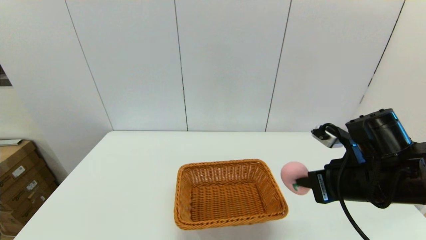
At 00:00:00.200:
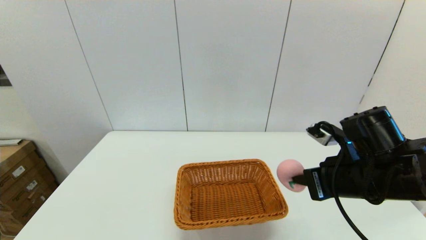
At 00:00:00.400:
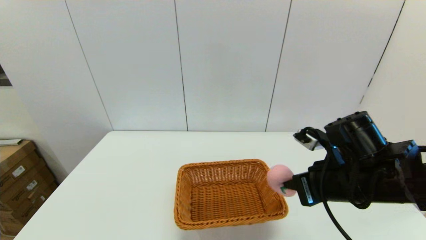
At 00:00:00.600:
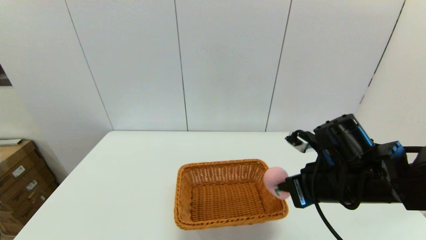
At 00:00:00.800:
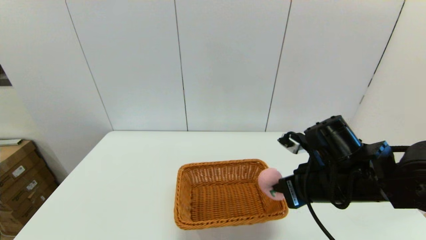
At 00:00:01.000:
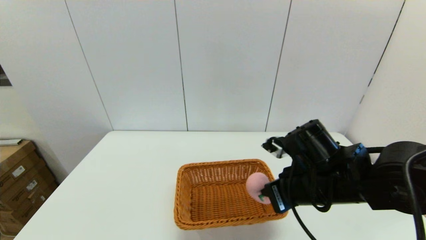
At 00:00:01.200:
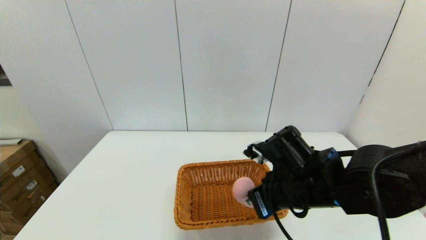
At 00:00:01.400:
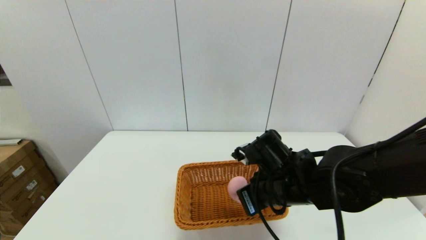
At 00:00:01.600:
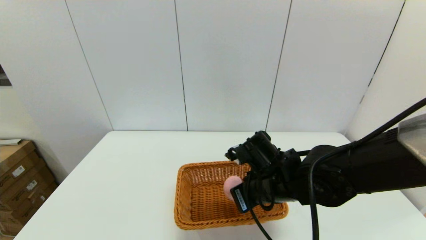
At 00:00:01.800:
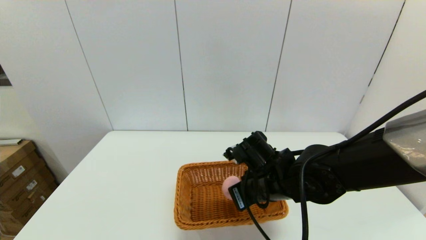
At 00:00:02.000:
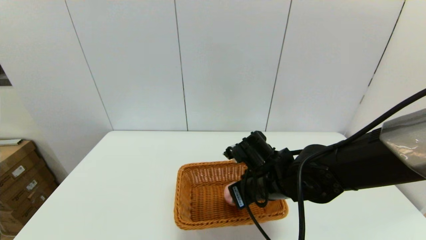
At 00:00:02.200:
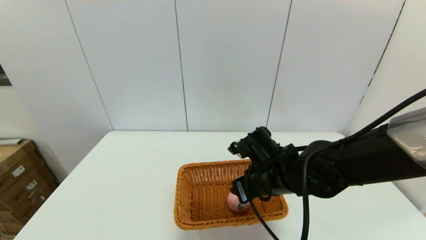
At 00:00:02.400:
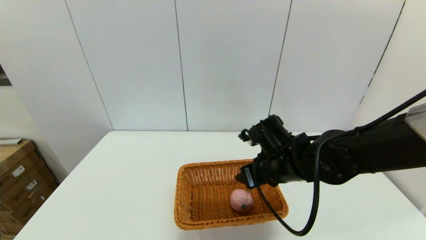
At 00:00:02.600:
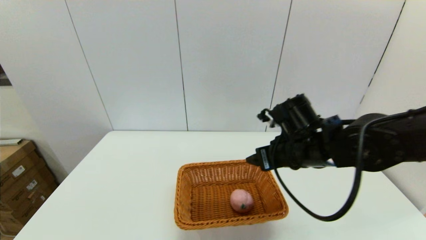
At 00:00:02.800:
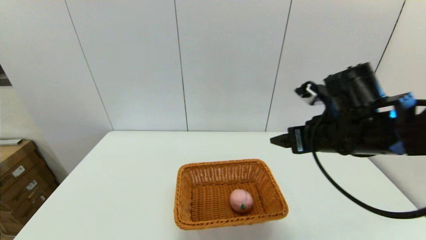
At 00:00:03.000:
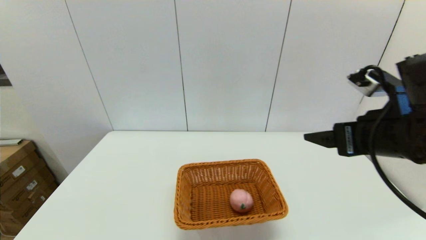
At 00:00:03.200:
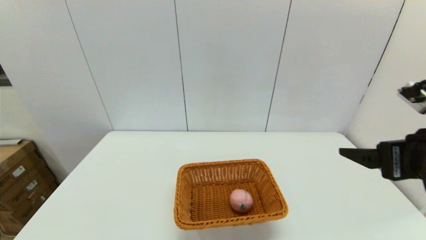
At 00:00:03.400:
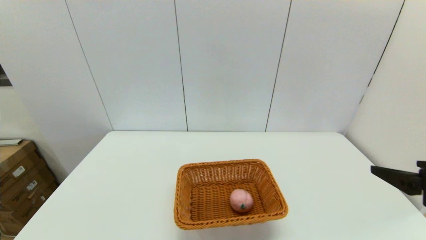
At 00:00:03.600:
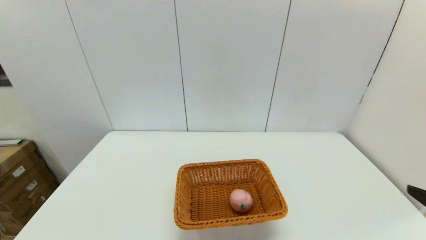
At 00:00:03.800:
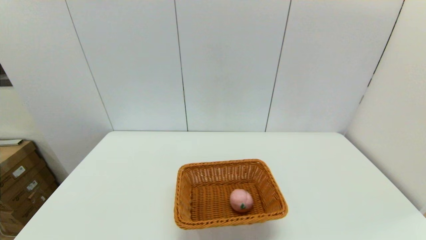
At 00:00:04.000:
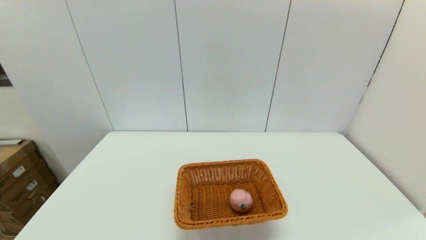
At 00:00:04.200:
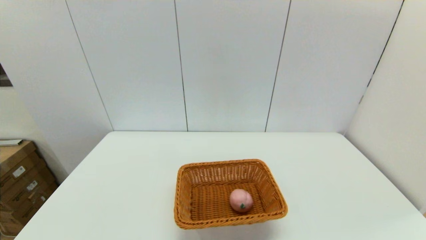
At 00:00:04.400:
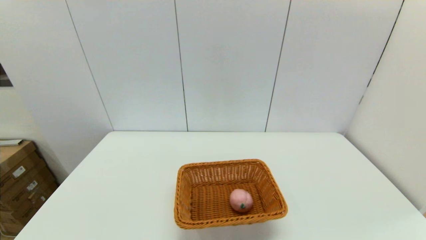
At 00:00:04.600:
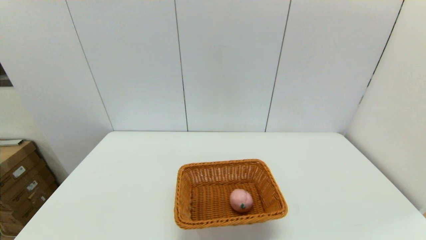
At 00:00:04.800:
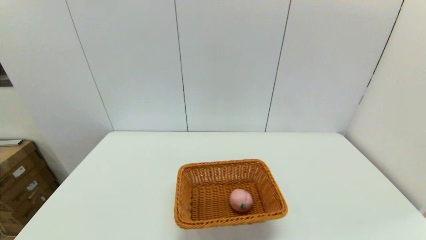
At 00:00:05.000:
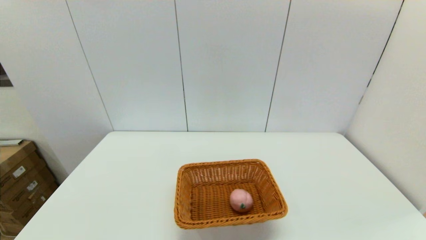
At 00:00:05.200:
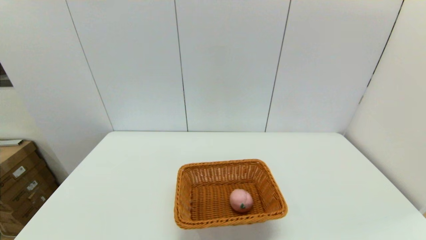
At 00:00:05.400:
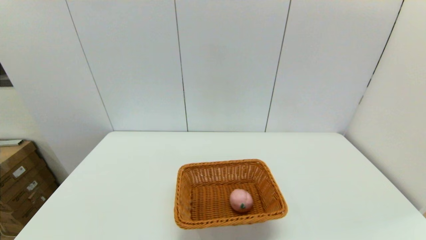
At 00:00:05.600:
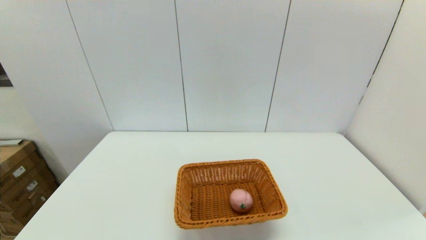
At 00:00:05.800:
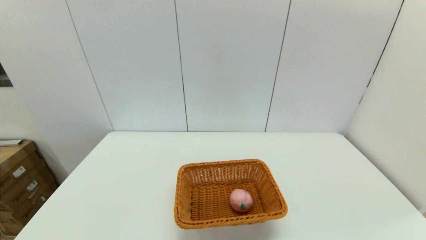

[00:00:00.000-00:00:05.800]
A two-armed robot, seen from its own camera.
Step, 00:00:00.000 to 00:00:02.200: Place the peach into the light basket with the right gripper.
00:00:00.000 to 00:00:01.400: The right gripper heads to the left and downward, covering some 15 cm.
00:00:01.400 to 00:00:02.800: The right gripper travels upward and to the right by approximately 15 cm, and opens up.
00:00:02.800 to 00:00:04.400: The right gripper moves backward, to the right and downward, some 35 cm.
